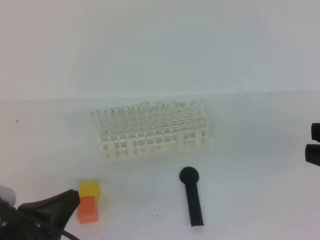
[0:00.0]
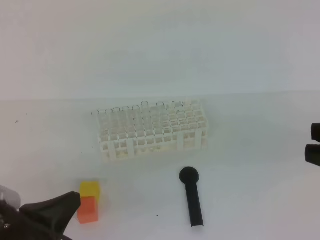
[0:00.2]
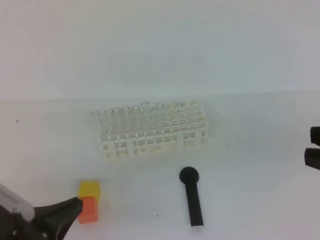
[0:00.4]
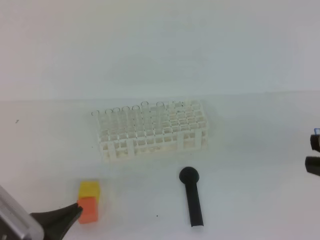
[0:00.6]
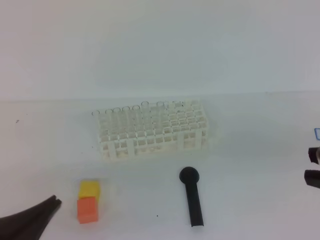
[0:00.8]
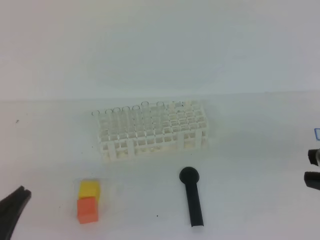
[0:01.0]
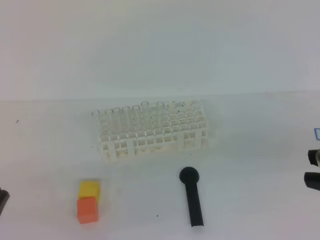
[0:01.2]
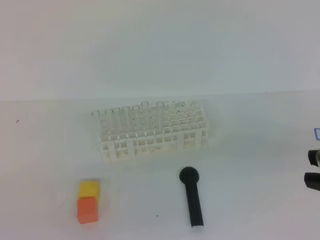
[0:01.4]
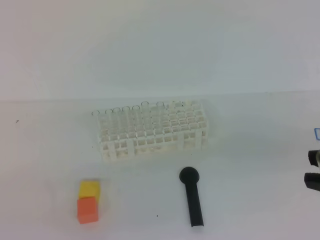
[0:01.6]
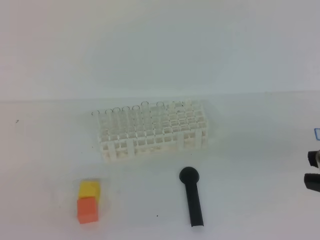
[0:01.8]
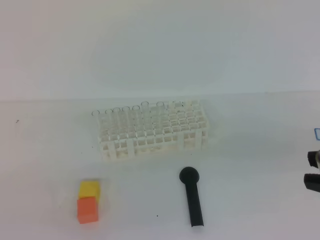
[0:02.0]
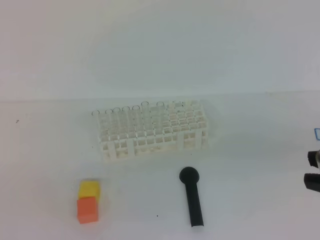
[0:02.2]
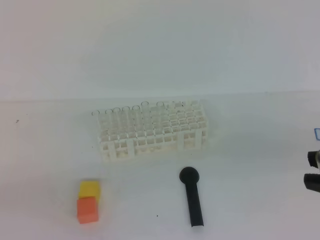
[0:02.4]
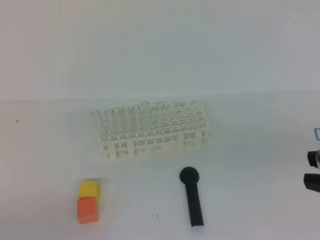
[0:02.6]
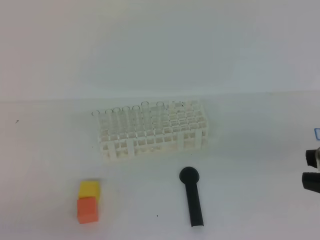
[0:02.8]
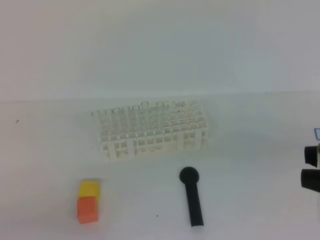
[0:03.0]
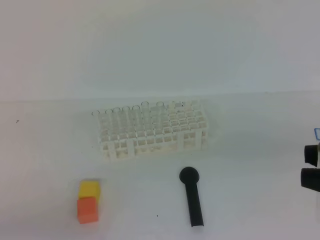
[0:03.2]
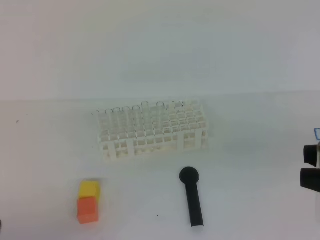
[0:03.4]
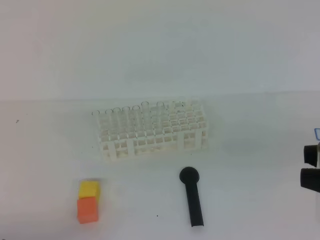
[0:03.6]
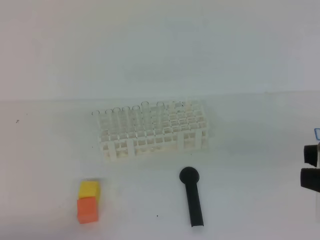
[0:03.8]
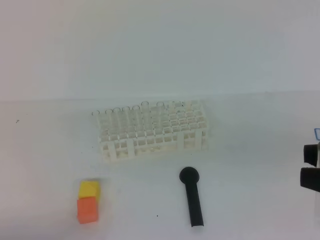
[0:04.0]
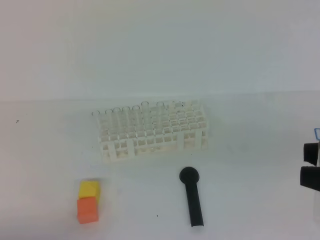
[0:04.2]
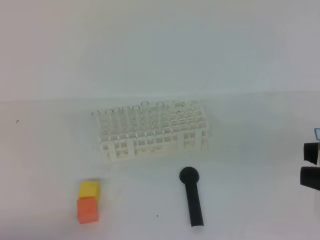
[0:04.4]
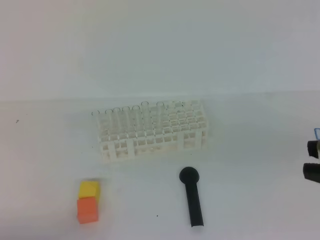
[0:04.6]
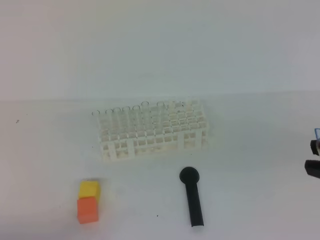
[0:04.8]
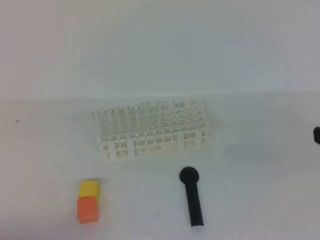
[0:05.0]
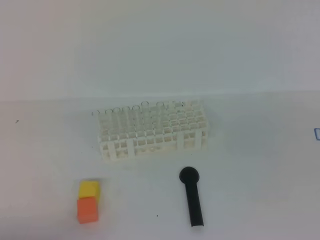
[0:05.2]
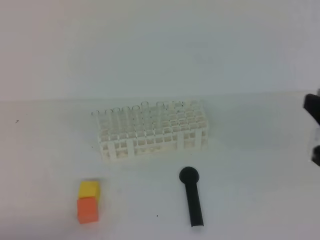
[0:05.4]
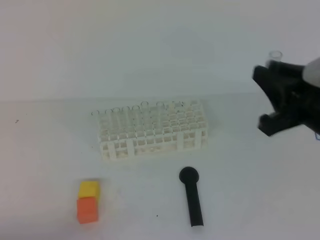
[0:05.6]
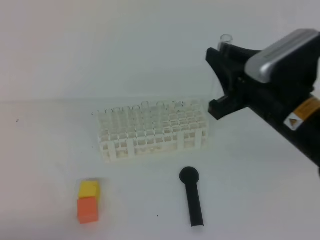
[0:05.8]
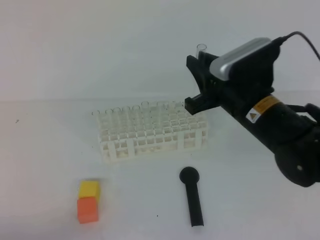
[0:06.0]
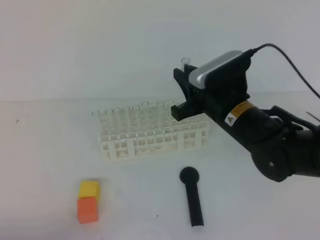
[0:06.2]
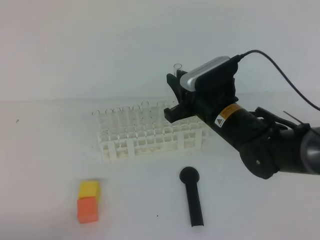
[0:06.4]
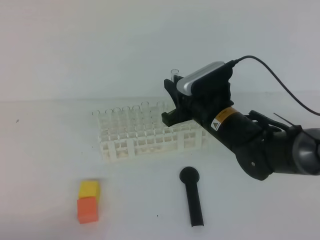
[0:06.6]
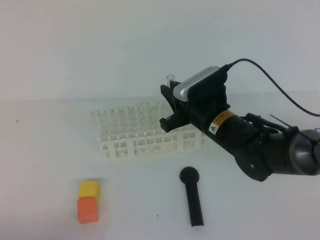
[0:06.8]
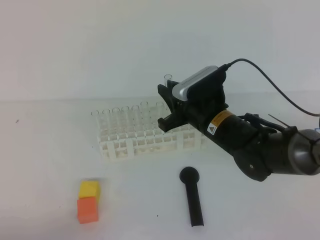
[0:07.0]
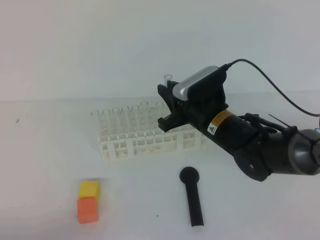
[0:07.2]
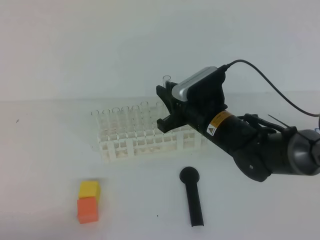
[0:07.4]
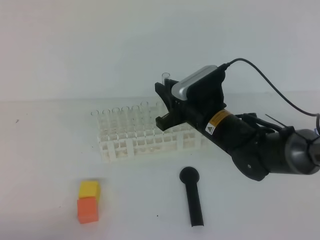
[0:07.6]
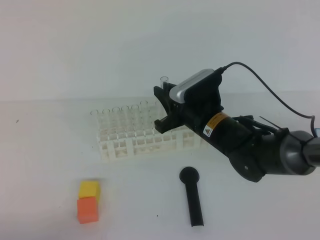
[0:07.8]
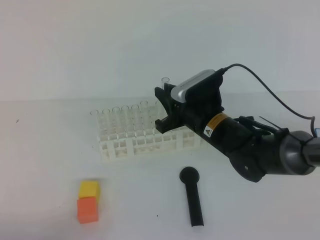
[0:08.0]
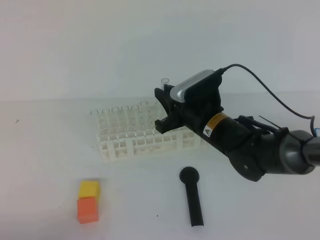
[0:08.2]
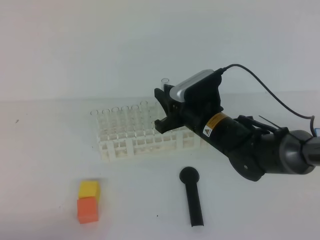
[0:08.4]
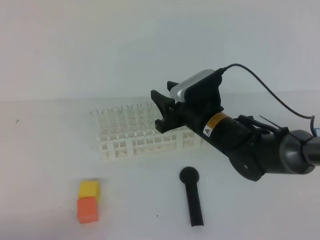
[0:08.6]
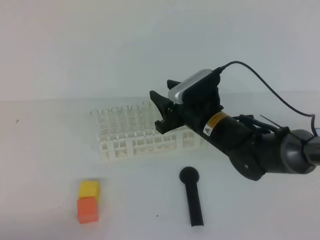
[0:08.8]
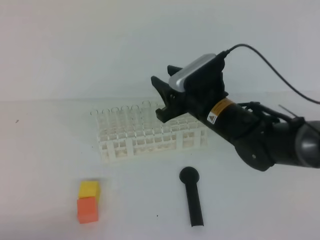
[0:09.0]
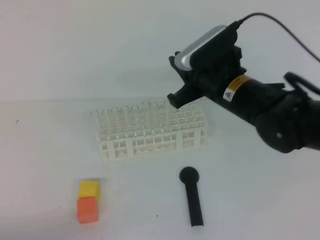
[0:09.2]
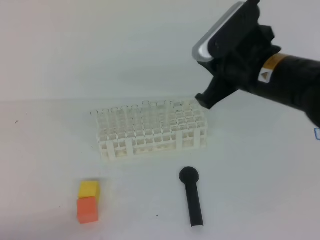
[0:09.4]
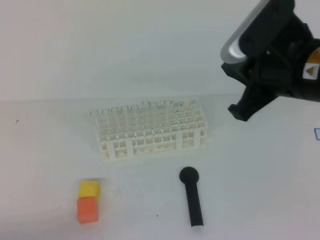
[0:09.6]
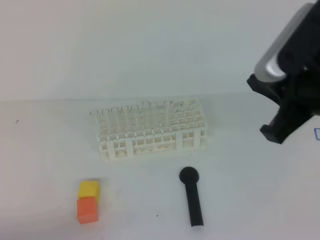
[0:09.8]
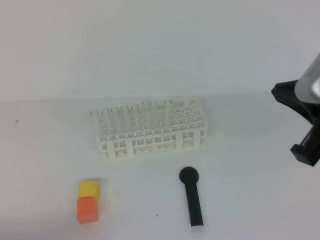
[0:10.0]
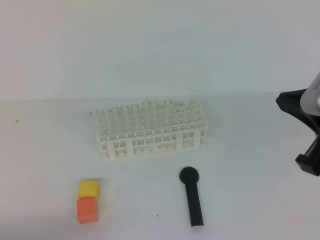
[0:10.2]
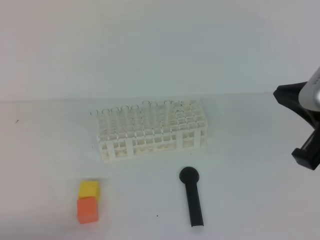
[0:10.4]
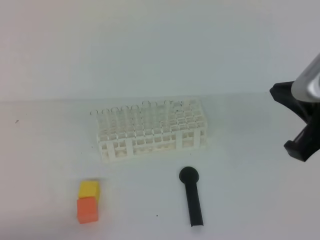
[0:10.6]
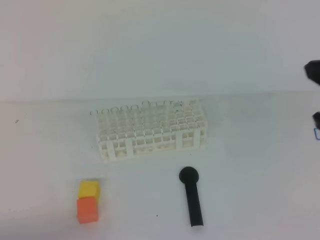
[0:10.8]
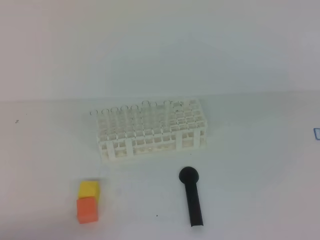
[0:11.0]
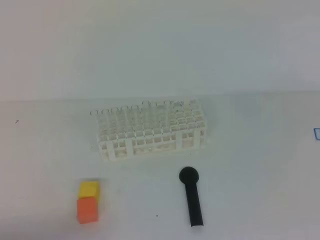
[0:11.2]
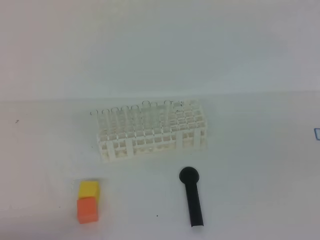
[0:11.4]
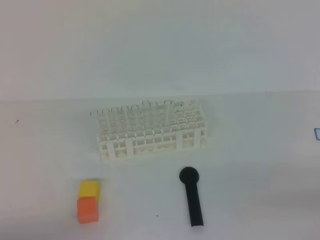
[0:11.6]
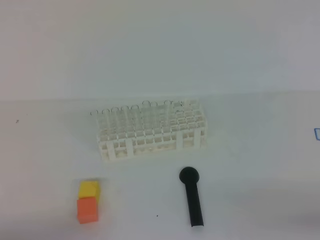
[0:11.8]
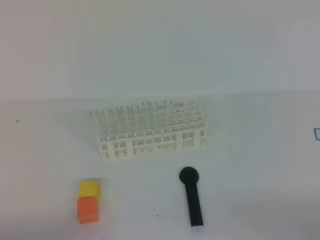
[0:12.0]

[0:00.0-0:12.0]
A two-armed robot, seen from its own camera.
0:00.0 to 0:01.6: The left gripper travels backward by some 10 cm.
0:04.4 to 0:06.0: The right gripper heads forward, downward and to the left, covering approximately 25 cm.
0:06.0 to 0:07.6: The right gripper moves downward, forward and to the left, some 10 cm.
0:07.6 to 0:09.0: The right gripper opens up.
0:09.0 to 0:10.4: The right gripper heads backward, upward and to the right, covering some 25 cm, and closes up.
0:10.4 to 0:12.0: The right gripper is displaced downward, backward and to the right by about 25 cm.

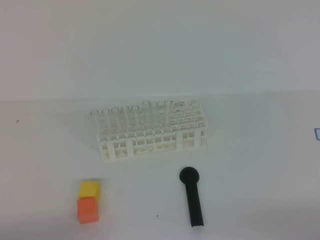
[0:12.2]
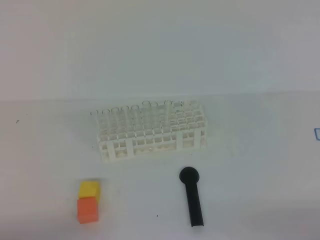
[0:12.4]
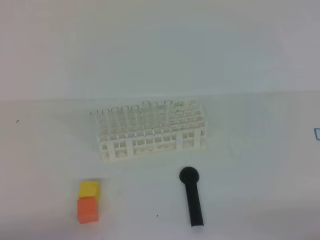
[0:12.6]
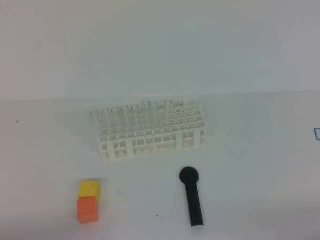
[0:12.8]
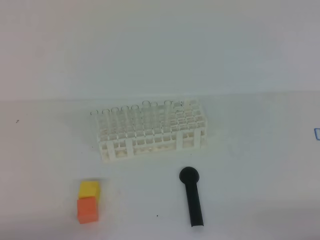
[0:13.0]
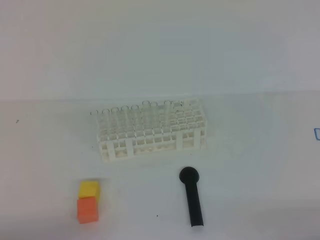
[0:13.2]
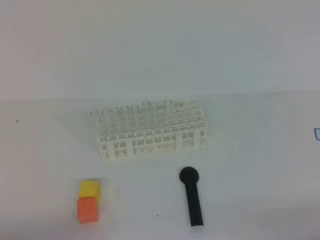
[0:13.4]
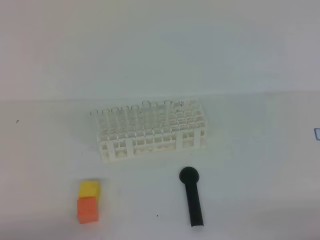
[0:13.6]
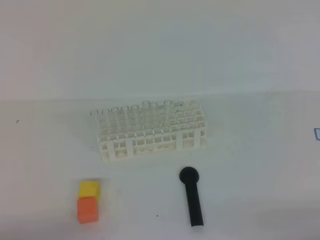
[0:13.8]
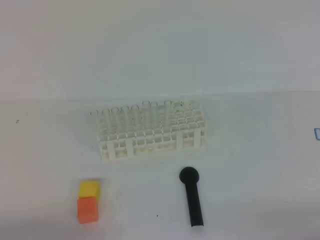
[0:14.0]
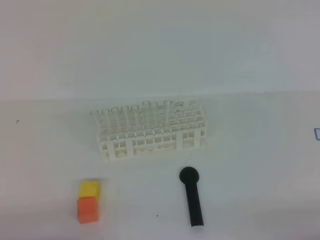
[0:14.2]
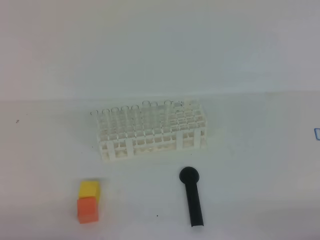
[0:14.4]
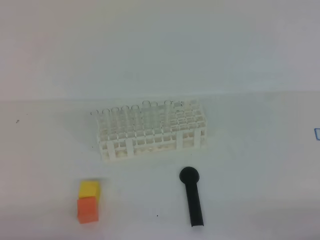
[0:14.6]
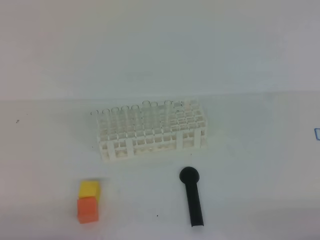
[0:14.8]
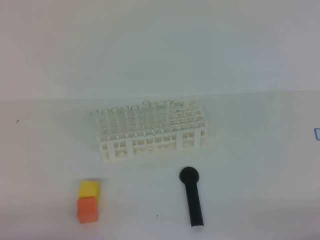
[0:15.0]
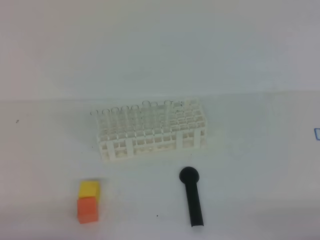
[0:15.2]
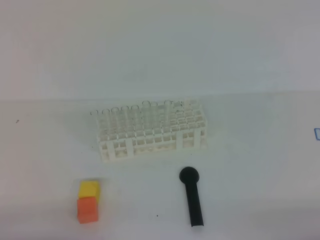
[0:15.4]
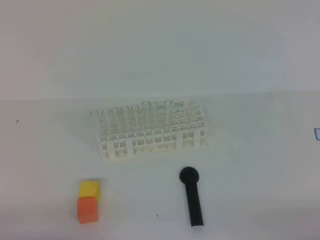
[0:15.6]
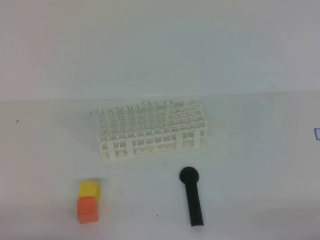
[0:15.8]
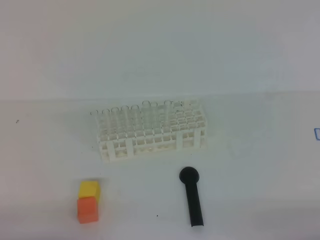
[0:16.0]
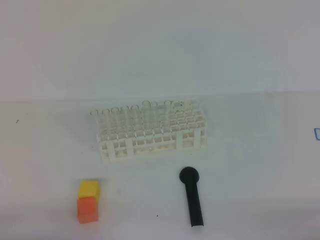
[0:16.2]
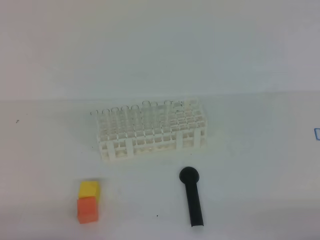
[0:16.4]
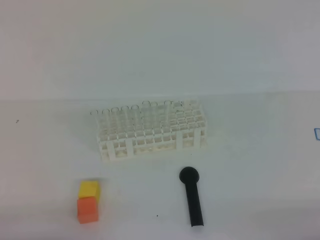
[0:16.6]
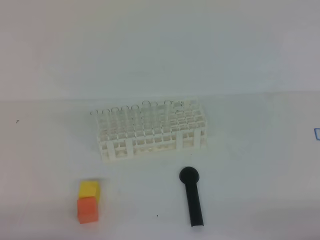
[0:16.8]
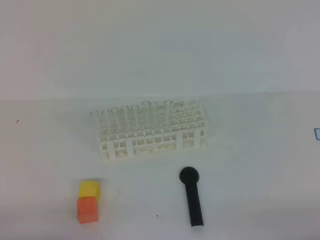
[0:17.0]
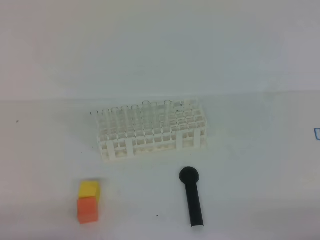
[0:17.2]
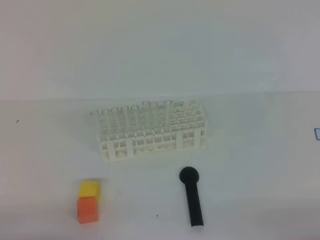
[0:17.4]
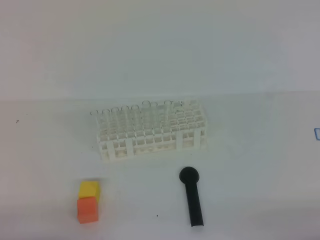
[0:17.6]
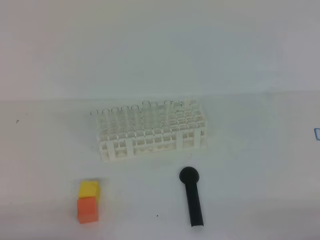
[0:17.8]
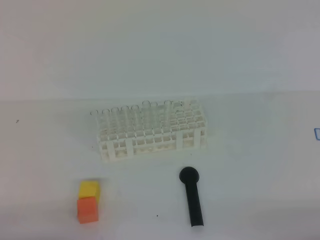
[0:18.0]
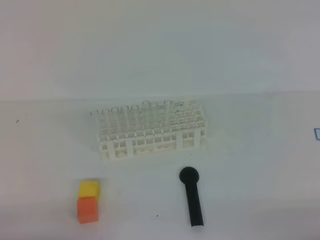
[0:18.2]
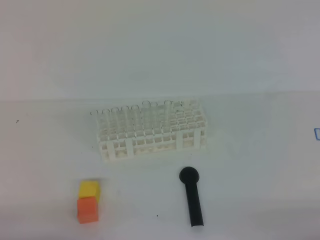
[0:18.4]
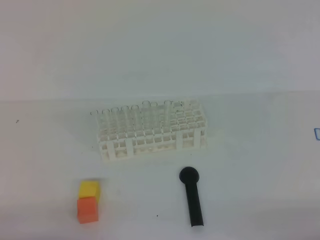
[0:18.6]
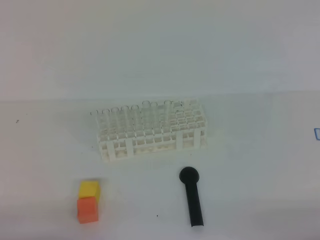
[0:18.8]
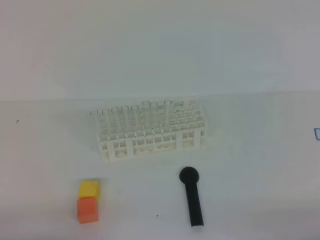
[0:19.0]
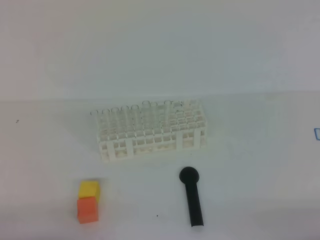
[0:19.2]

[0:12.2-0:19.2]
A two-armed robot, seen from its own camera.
0:15.0 to 0:19.2: Both grippers stay about where they are.
